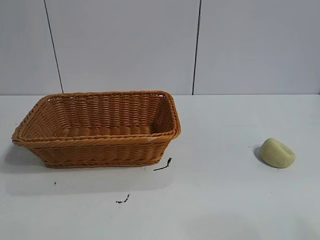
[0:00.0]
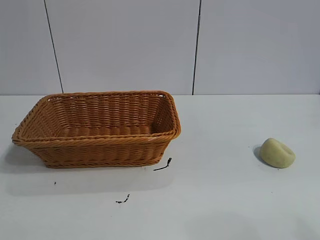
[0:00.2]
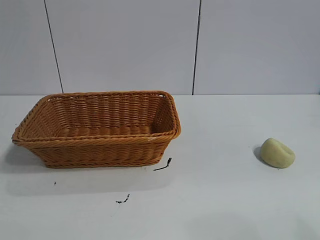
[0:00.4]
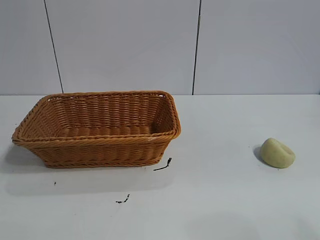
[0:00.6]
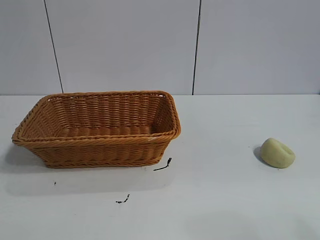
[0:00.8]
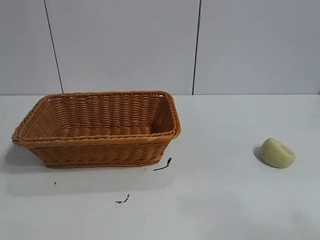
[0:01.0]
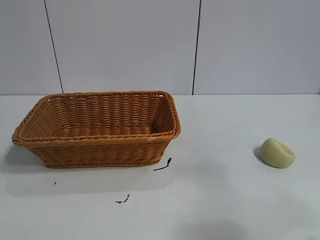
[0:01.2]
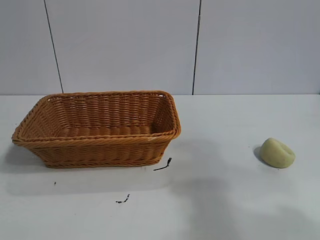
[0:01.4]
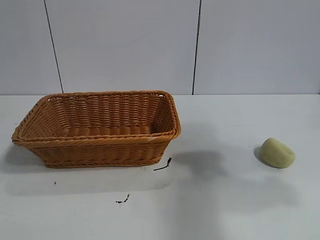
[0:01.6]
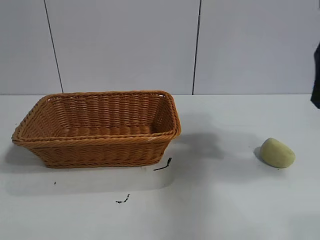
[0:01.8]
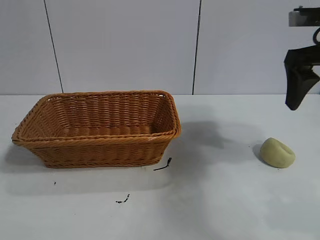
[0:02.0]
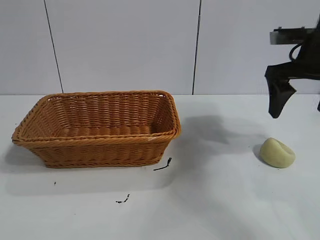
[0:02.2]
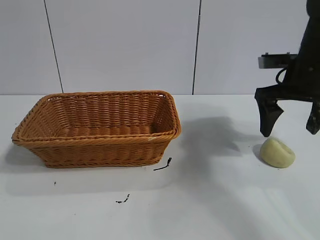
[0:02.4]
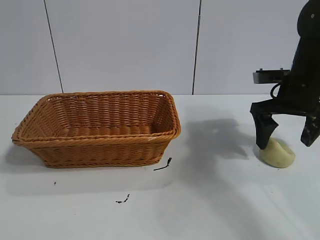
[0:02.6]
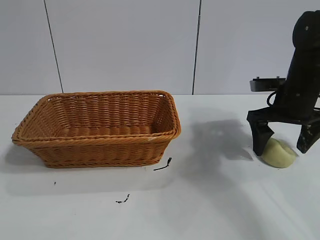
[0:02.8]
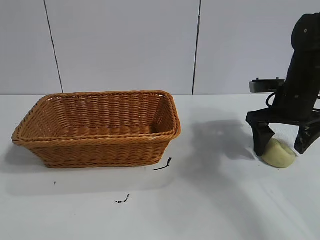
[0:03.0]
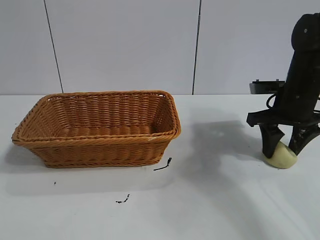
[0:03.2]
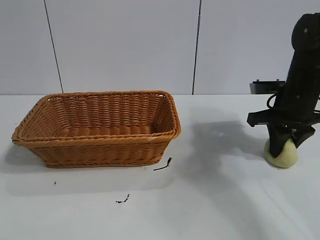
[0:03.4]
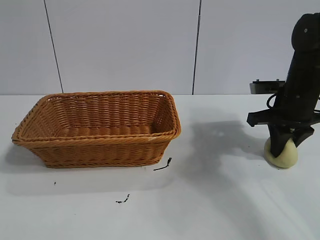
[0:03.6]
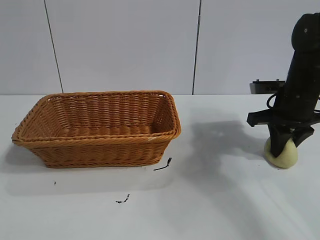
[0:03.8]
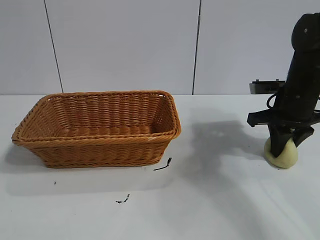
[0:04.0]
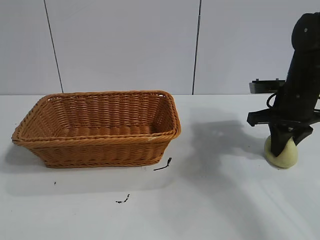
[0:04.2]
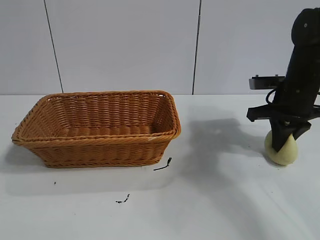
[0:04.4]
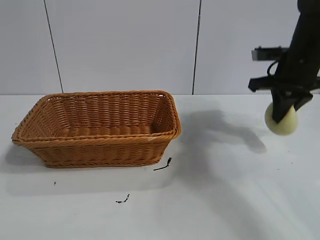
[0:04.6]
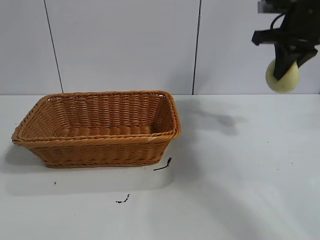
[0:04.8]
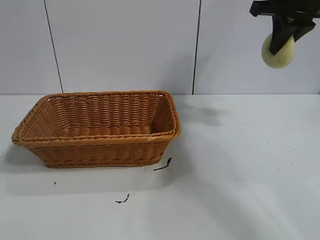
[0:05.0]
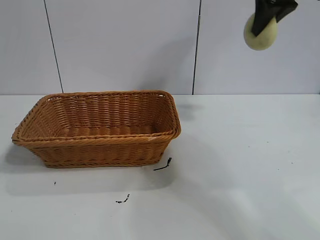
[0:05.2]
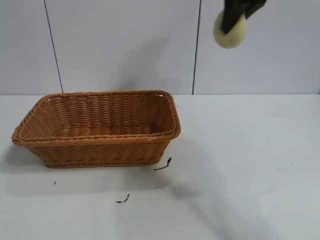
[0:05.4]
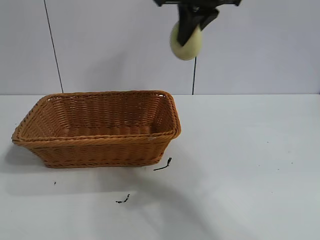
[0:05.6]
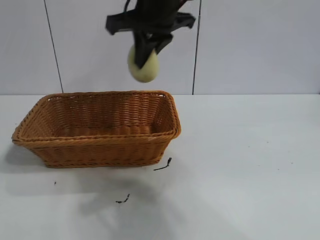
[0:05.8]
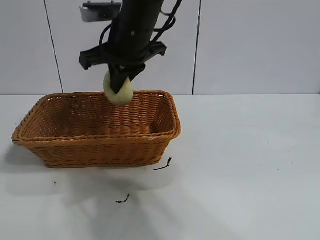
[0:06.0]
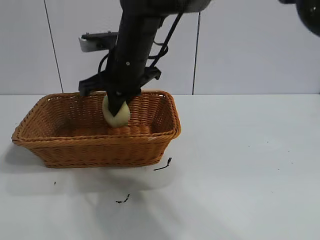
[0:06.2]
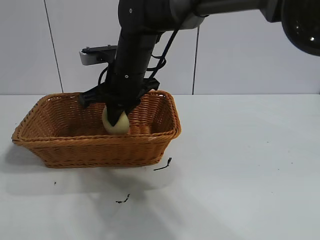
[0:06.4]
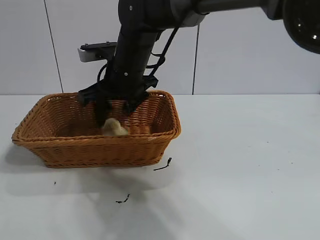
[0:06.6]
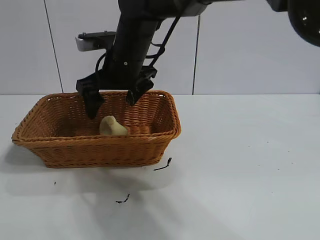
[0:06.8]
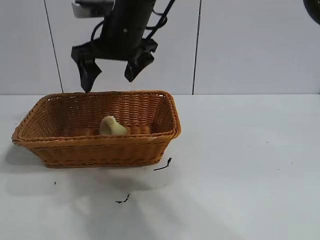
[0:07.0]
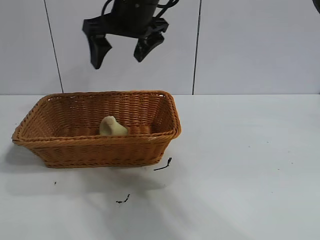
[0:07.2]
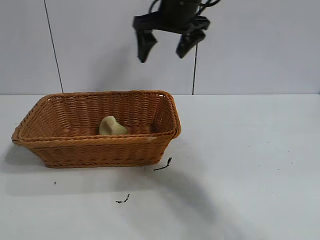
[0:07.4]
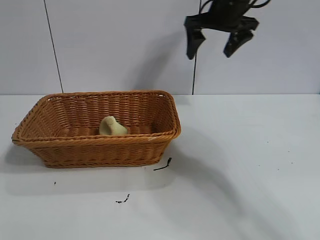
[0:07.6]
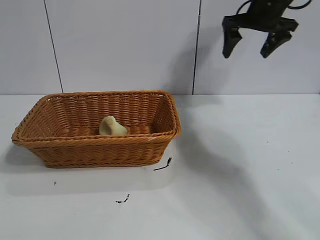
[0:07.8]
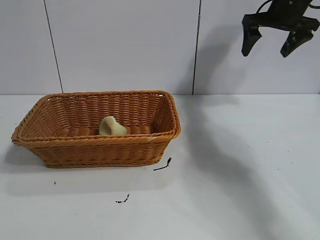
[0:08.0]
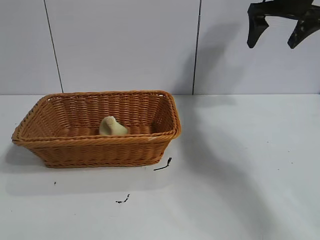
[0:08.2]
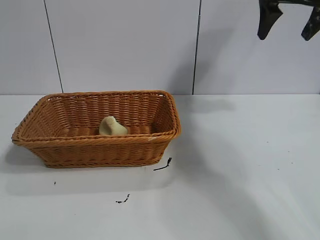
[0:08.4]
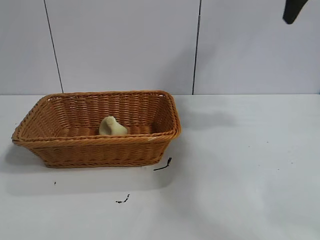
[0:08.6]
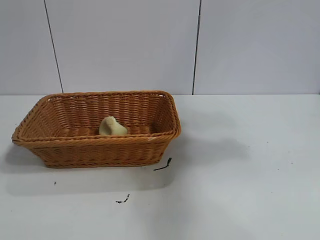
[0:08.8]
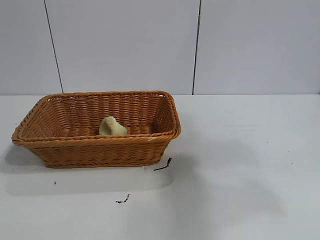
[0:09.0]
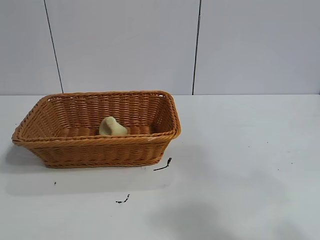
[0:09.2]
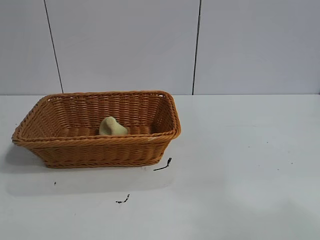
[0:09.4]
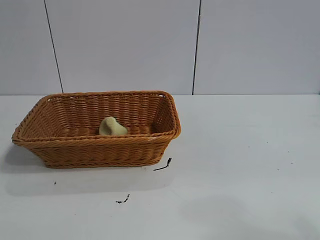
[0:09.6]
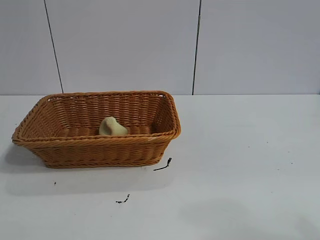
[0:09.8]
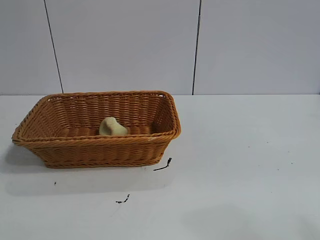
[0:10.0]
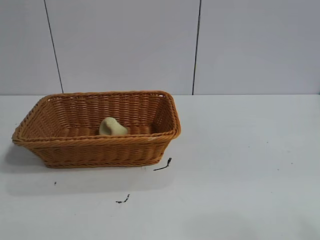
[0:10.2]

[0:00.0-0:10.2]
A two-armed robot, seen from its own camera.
Task of the whole recording: pick up the egg yolk pastry and put it into the basket.
Step, 0:00.8 to 0:04.0: Grasp egg yolk pastry with right gripper.
Step, 0:04.4 to 0:06.8: Place the egg yolk pastry in the basket with right gripper.

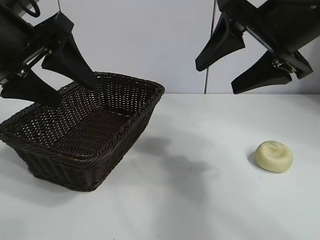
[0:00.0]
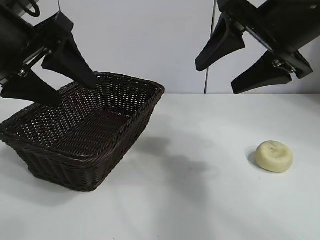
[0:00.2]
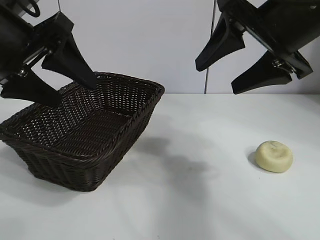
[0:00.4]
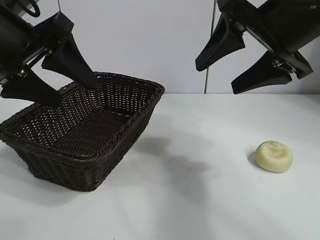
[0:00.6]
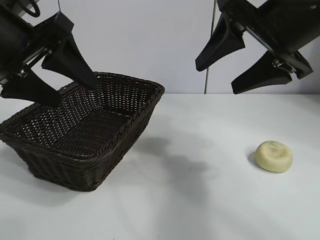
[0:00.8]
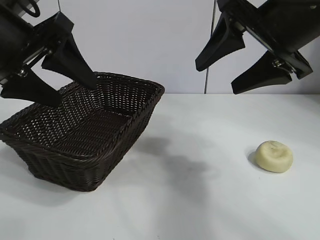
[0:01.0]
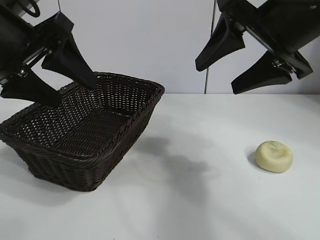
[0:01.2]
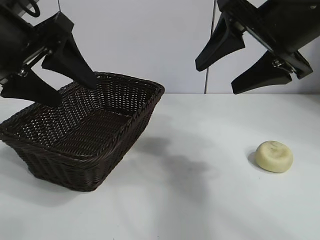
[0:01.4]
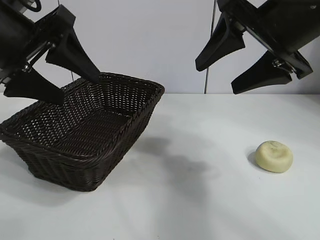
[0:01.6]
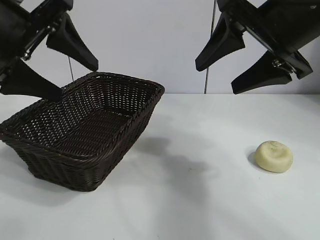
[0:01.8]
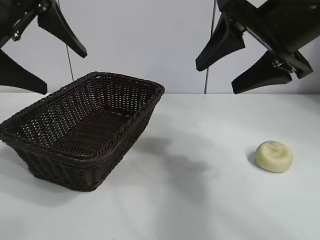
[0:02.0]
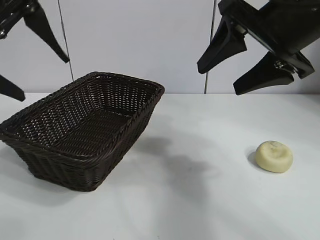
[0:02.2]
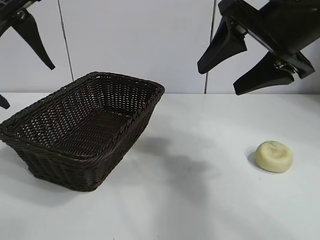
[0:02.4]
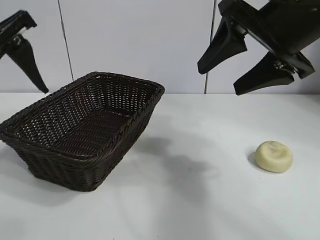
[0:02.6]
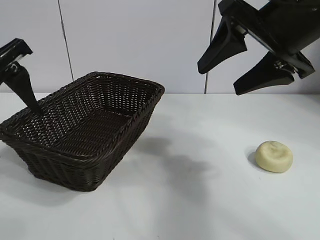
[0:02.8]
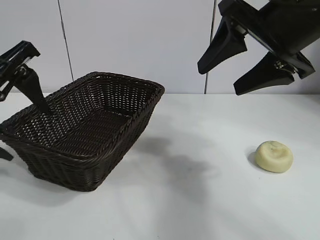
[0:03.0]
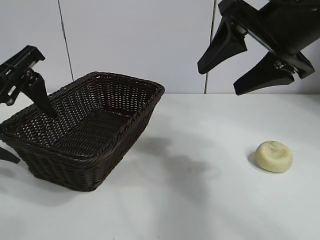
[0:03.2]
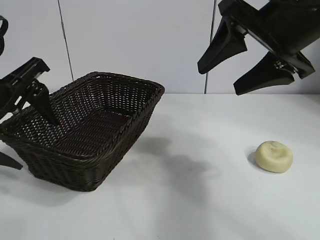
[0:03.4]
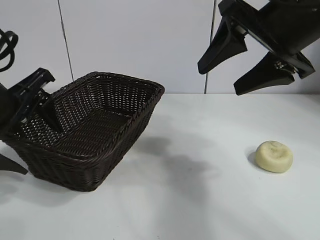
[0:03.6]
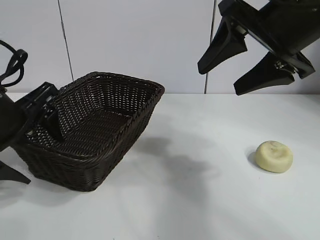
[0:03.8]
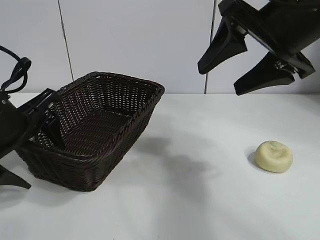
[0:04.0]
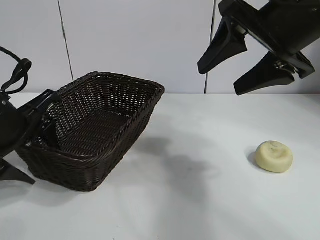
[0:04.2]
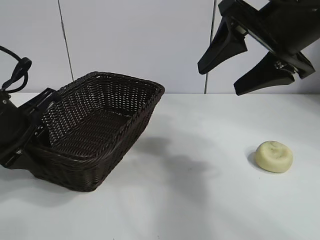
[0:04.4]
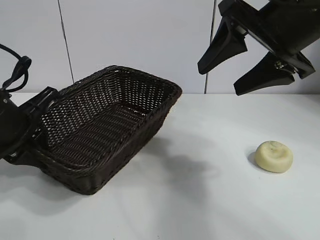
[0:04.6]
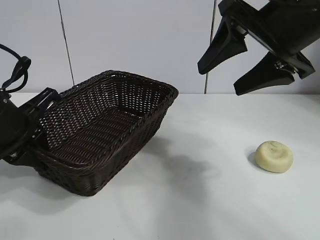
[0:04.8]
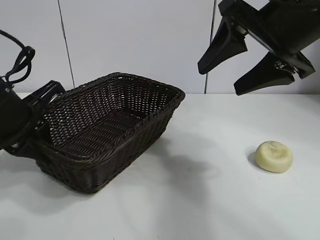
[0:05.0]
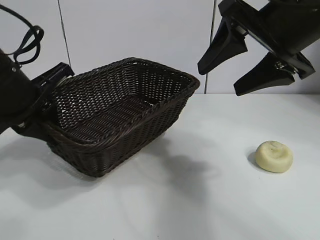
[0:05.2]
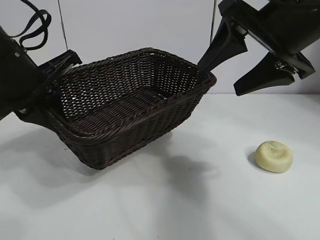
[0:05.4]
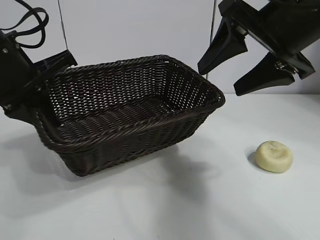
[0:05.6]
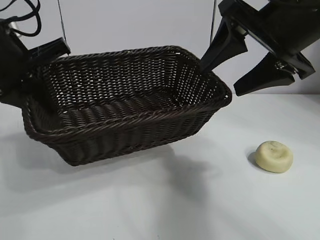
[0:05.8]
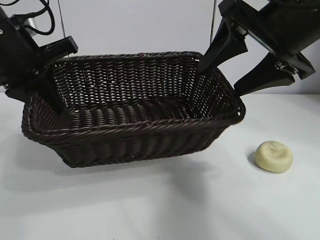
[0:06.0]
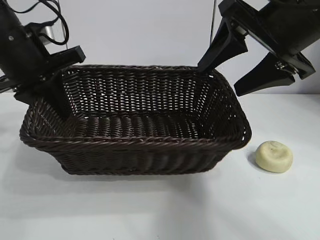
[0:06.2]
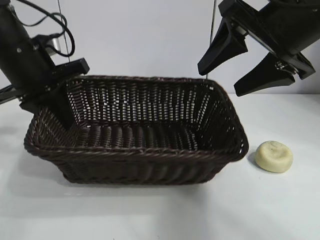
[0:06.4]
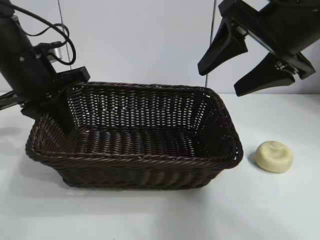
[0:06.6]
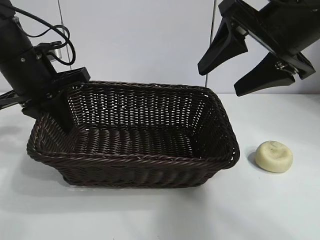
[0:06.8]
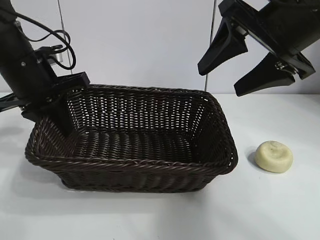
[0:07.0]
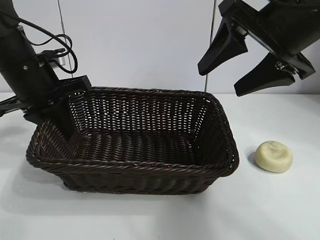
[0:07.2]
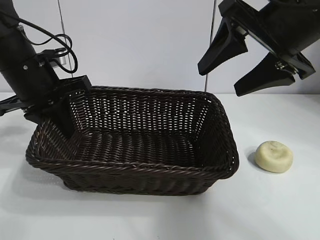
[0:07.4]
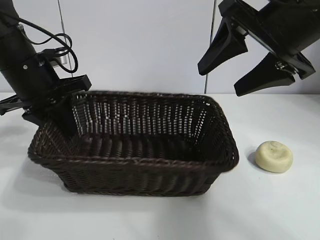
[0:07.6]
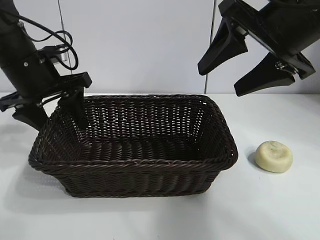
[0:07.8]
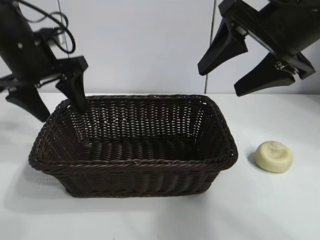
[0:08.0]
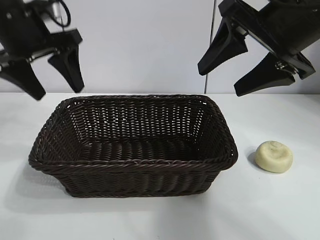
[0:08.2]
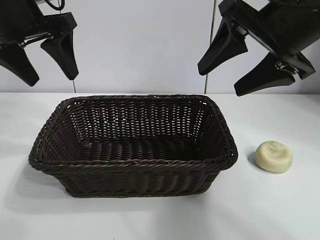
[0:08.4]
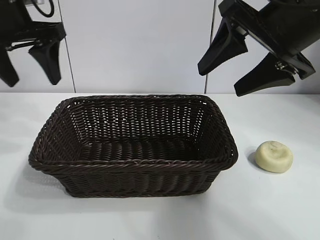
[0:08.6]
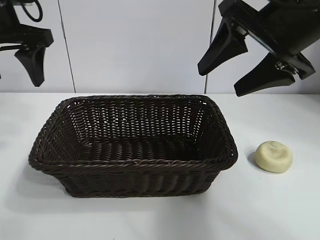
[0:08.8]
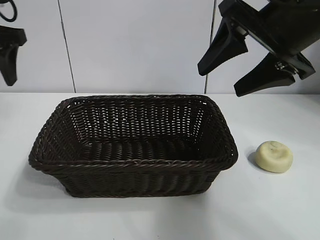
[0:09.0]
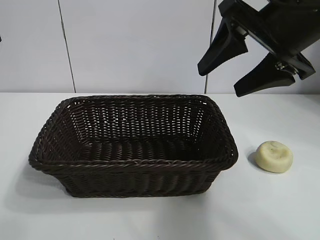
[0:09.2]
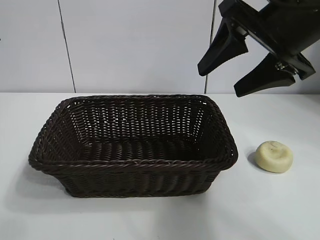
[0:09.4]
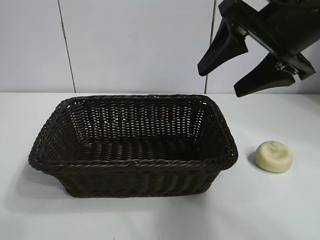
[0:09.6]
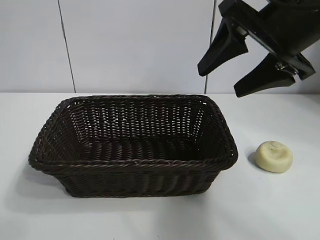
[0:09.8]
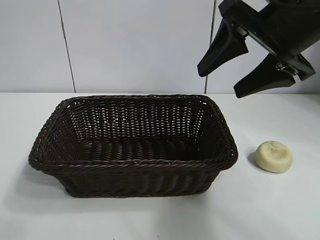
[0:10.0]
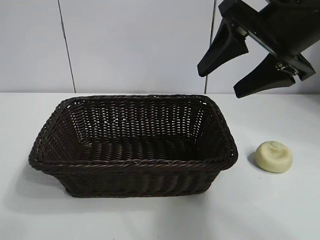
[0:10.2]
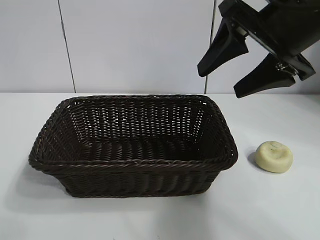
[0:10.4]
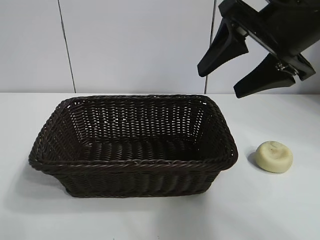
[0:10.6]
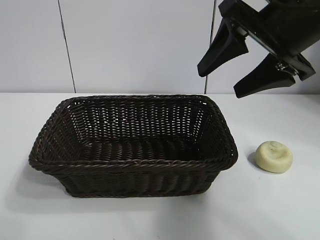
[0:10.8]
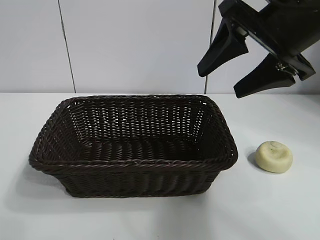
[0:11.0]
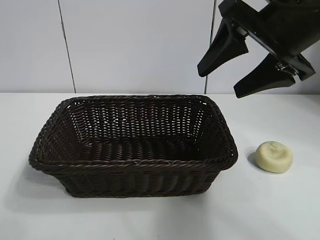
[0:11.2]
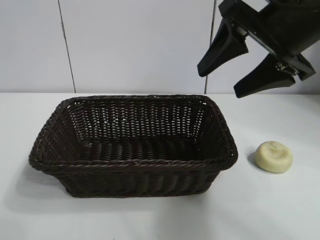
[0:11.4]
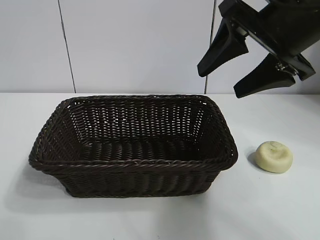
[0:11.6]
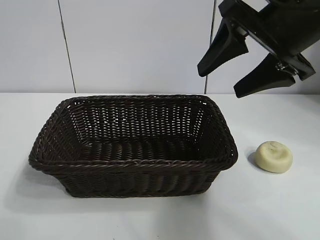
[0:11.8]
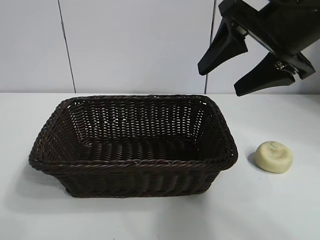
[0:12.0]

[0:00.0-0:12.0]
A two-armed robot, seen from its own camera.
Task of the whole recording: pick up the egg yolk pastry and put it into the basket.
Step, 0:01.6 to 0:04.6: Grasp the basket with left gripper.
Step, 0:04.8 to 0:08.0: Place the basket in the center of view with left gripper.

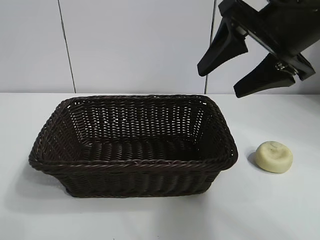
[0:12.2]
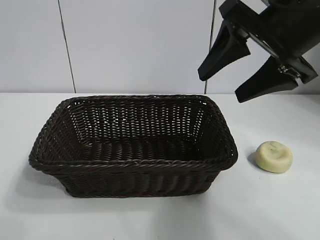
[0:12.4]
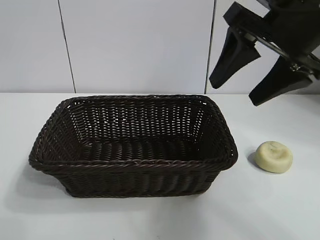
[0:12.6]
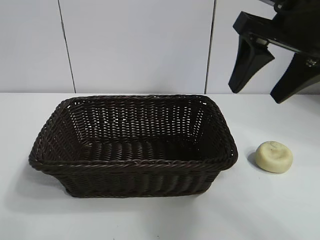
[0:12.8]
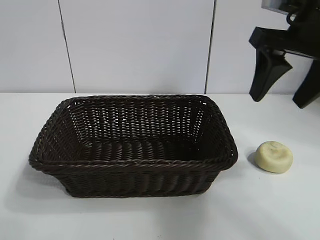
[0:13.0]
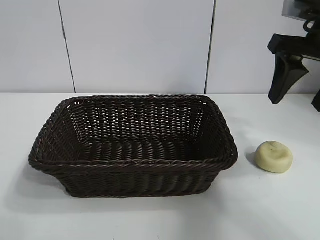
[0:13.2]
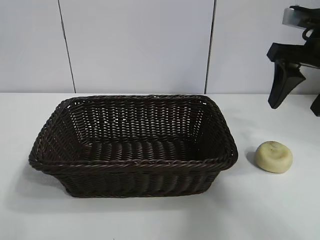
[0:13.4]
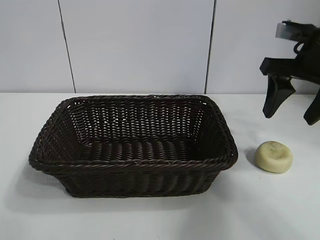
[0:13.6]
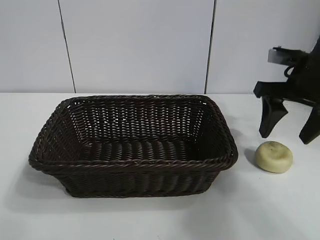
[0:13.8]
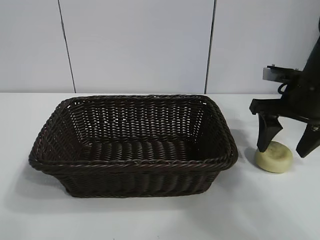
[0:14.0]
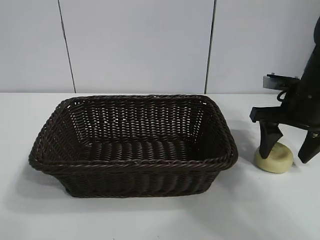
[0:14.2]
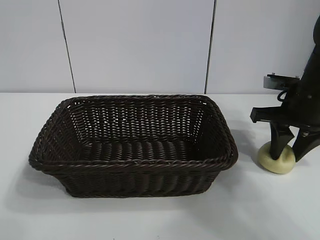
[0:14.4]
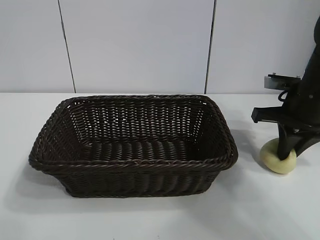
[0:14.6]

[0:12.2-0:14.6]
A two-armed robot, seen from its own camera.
Task of the whole recording: pick up the egg yolk pastry and put it into the basket.
Step, 0:12.2 to 0:14.6: Grasp egg yolk pastry with right gripper.
